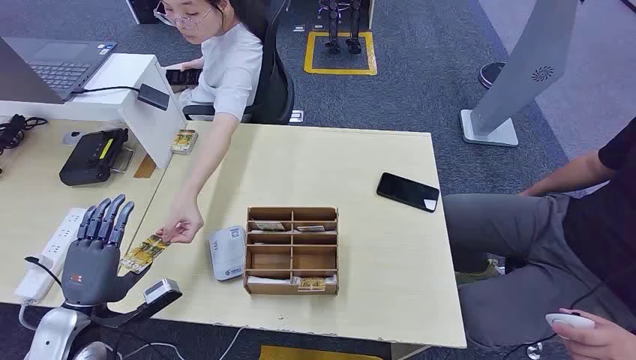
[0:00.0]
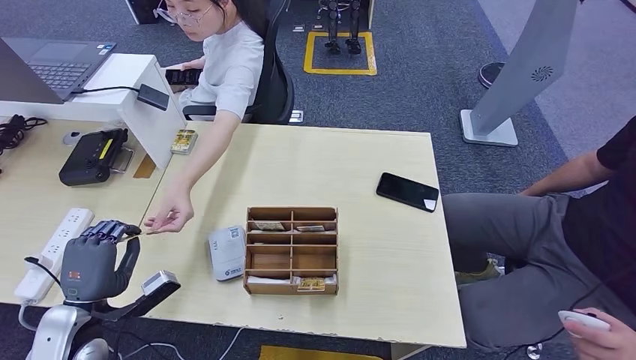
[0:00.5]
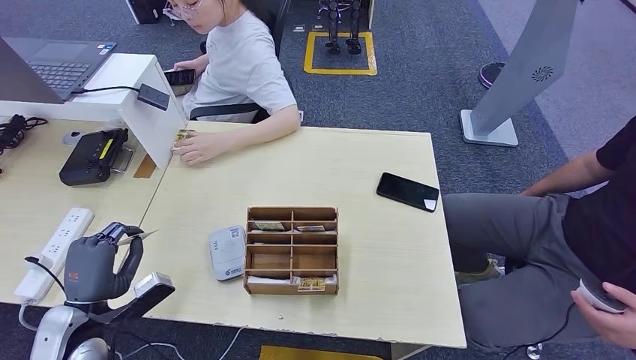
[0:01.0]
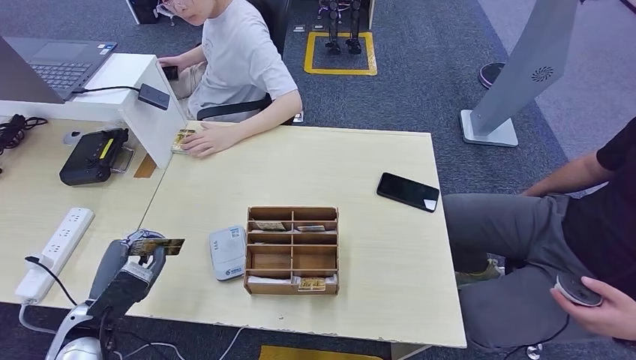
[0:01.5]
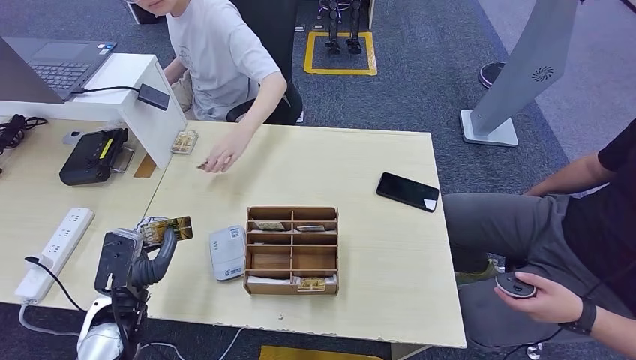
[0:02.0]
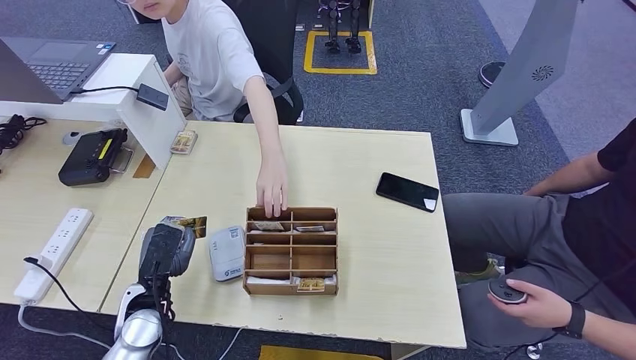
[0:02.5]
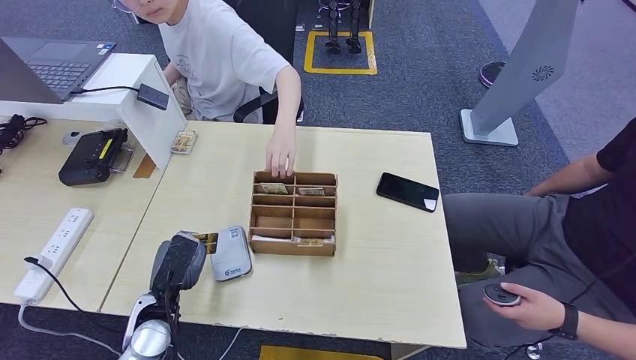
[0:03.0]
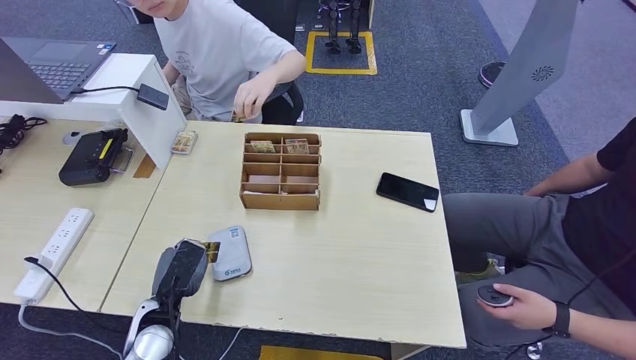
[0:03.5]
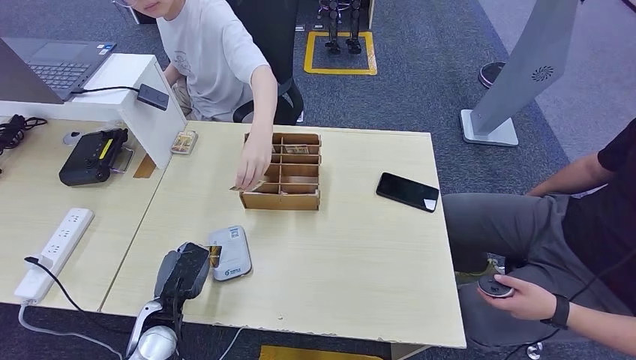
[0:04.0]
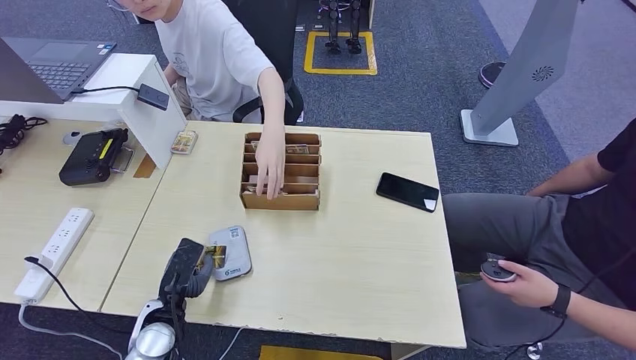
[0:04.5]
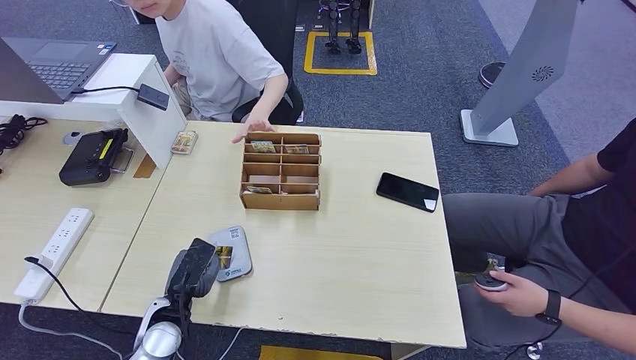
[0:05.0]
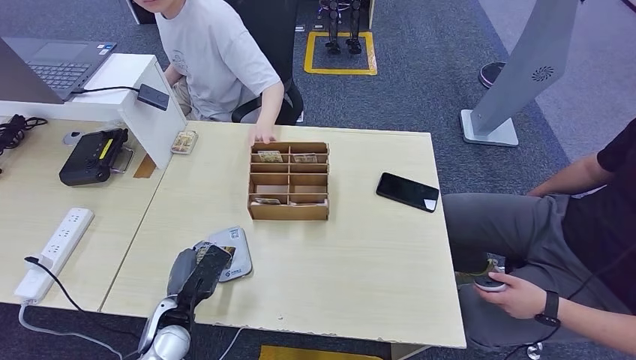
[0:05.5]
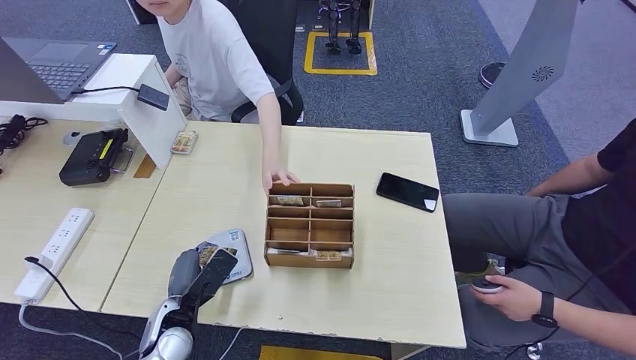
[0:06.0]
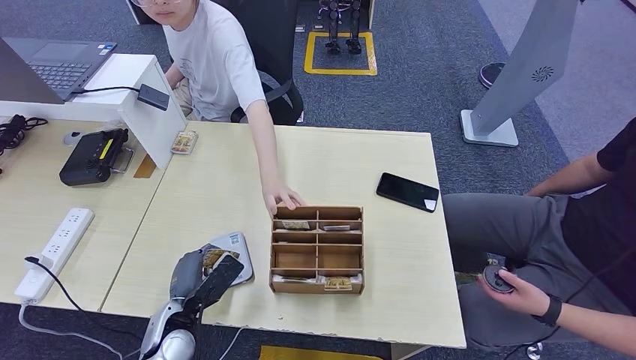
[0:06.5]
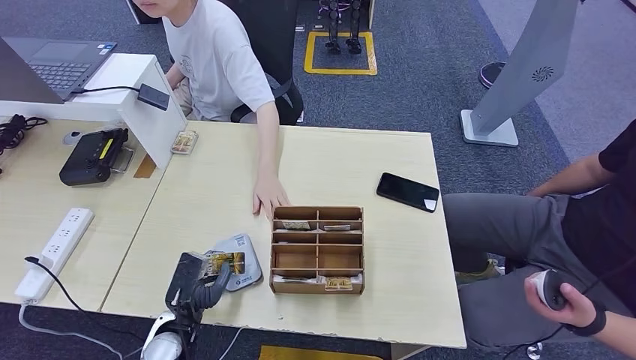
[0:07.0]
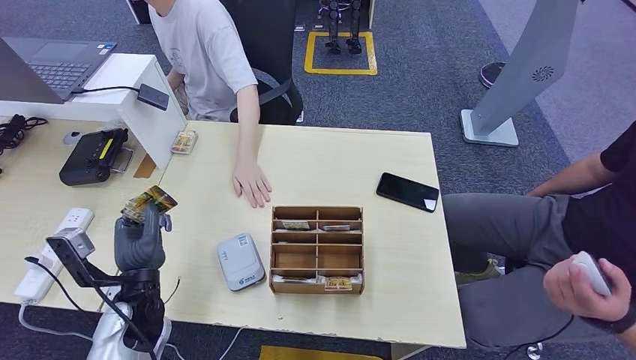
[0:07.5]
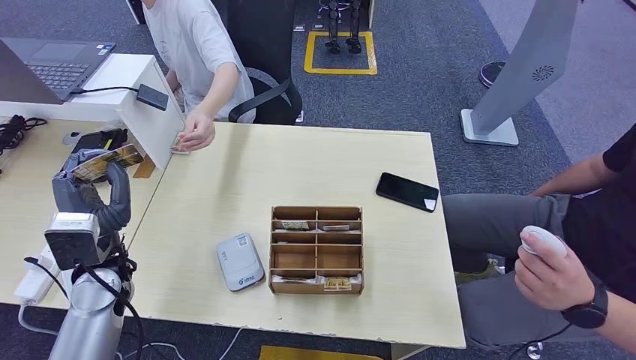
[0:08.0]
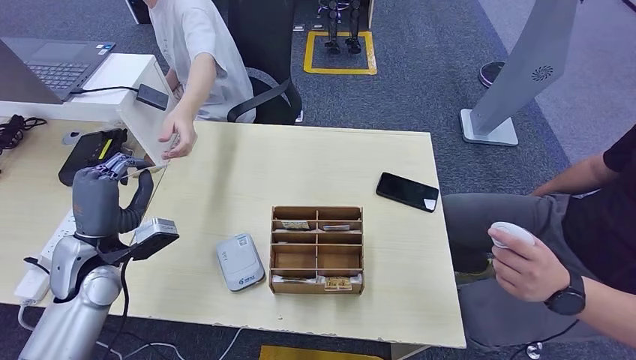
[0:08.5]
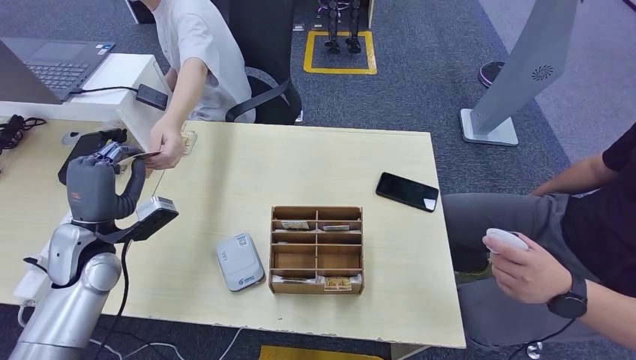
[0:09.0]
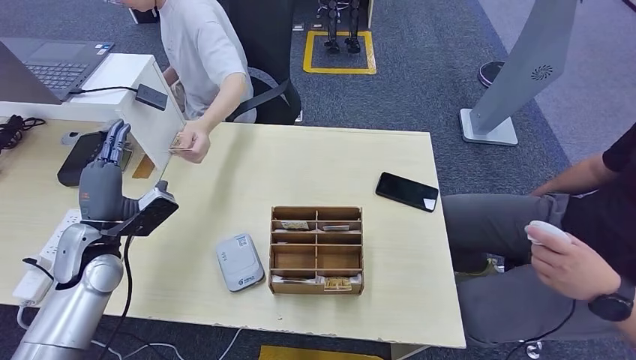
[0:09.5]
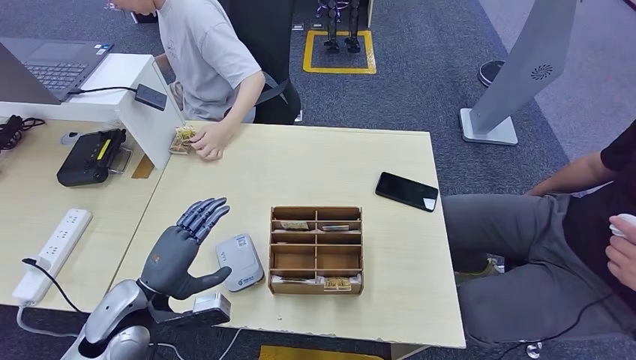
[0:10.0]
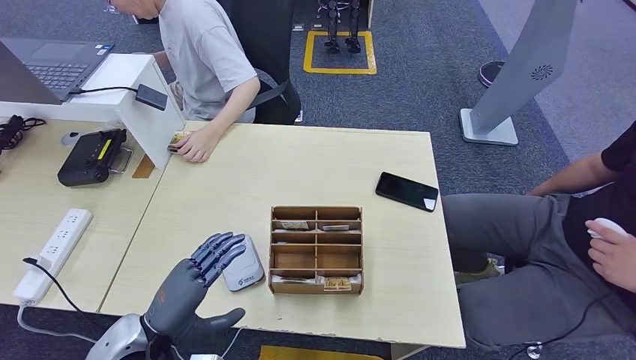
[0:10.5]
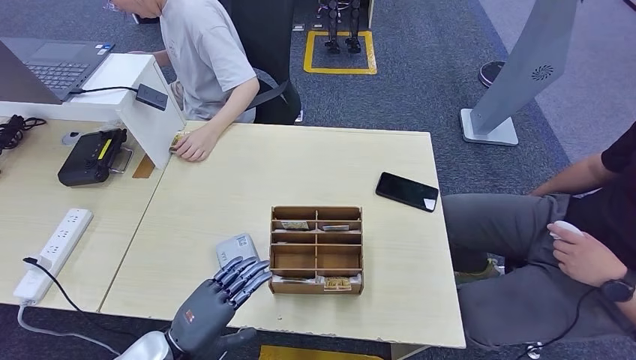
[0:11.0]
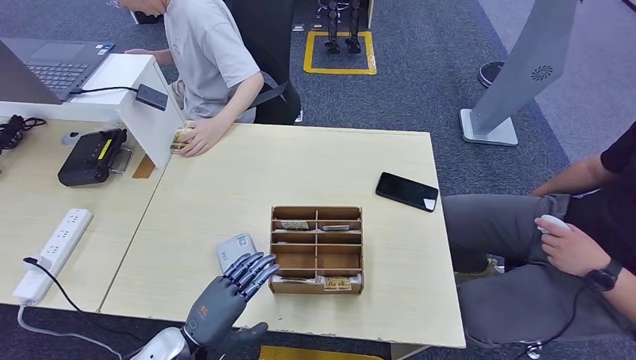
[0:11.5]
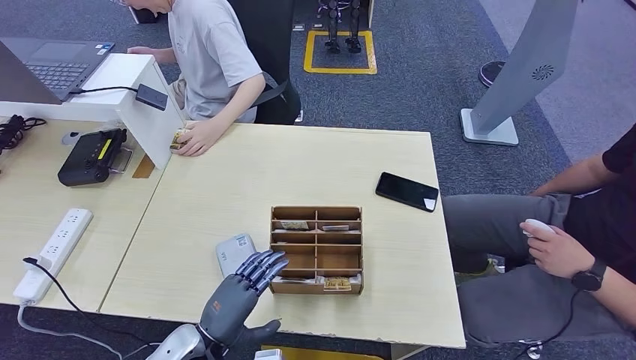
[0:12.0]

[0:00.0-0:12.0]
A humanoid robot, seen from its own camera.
Step, 0:00.0 to 0:01.5: Take the ID card from the person's hand.
Step, 0:02.0 to 0:06.5: Place the ID card on the card reader.
Step, 0:07.0 to 0:09.0: Hand the ID card to the person.
0:02.0 to 0:04.0: The left hand goes roughly 5 cm downward.
0:04.0 to 0:06.0: The hands move only a little.
0:08.0 to 0:10.0: The left hand is displaced downward and backward by approximately 5 cm.
0:10.0 to 0:12.0: The left hand moves to the right, backward and downward, about 10 cm.

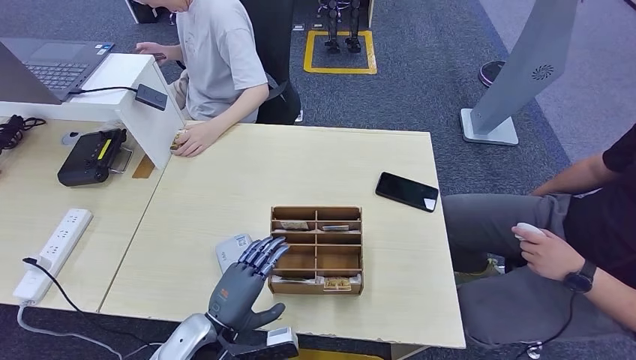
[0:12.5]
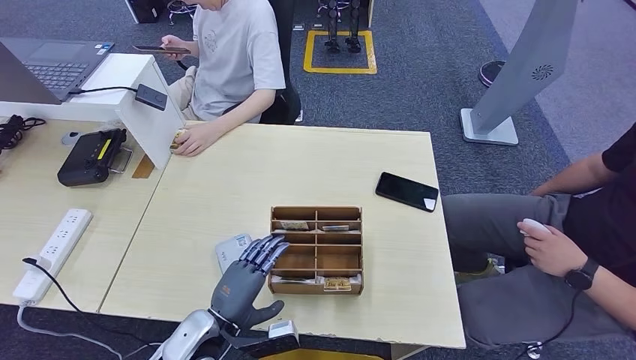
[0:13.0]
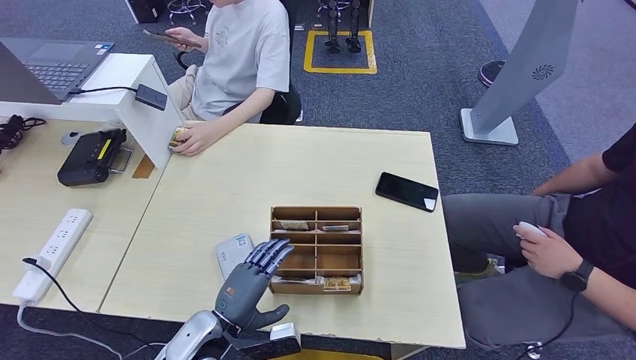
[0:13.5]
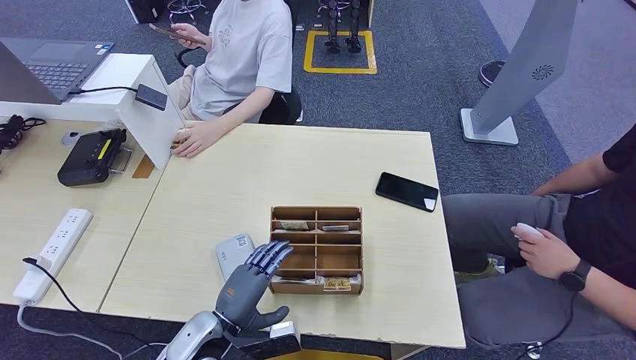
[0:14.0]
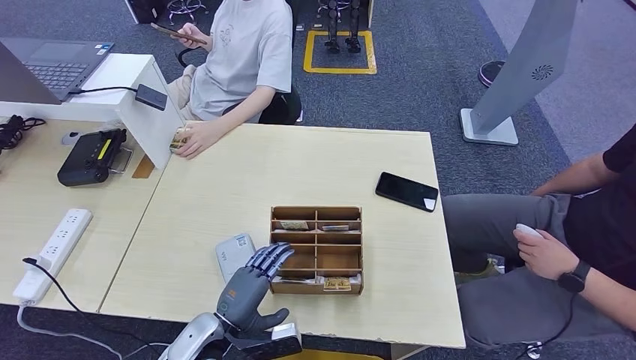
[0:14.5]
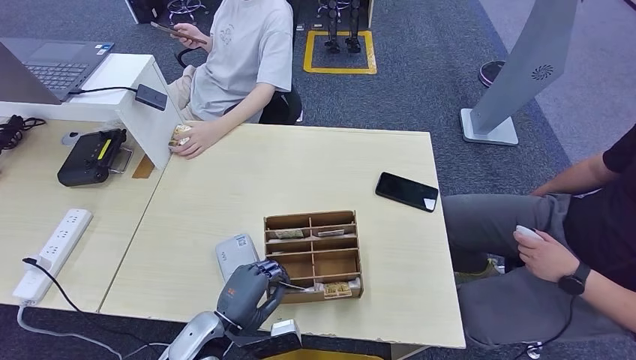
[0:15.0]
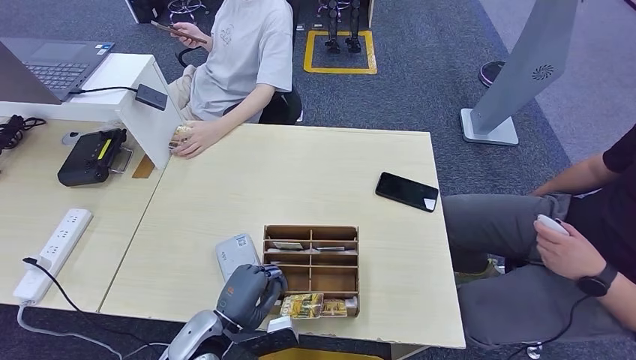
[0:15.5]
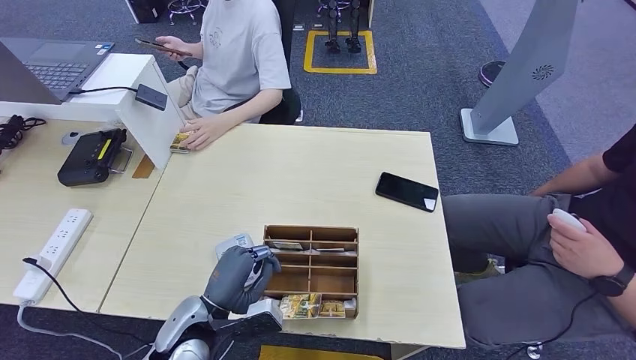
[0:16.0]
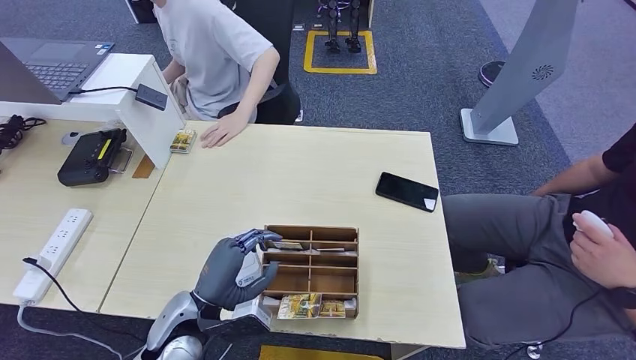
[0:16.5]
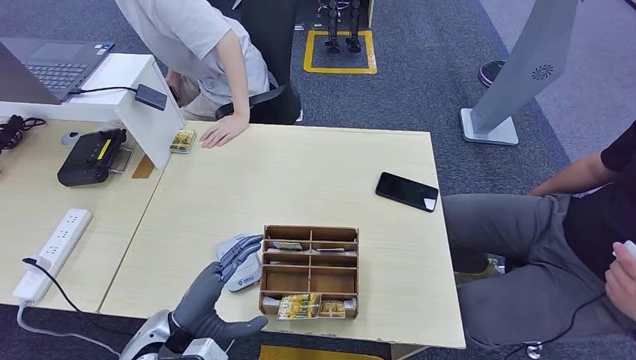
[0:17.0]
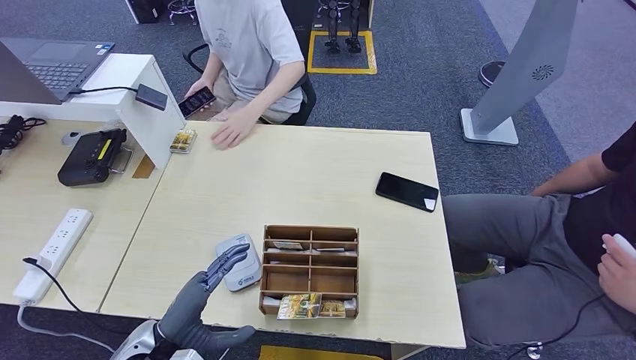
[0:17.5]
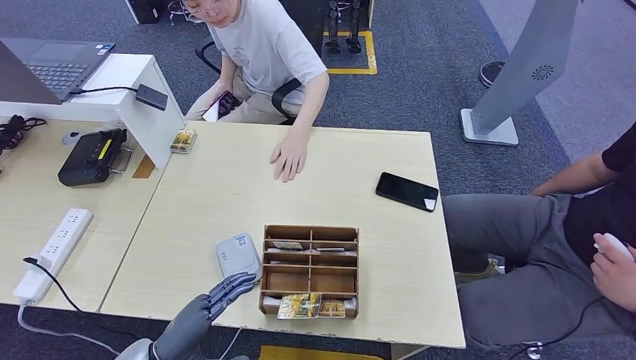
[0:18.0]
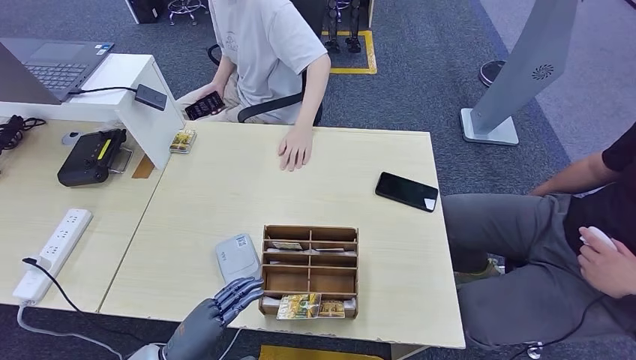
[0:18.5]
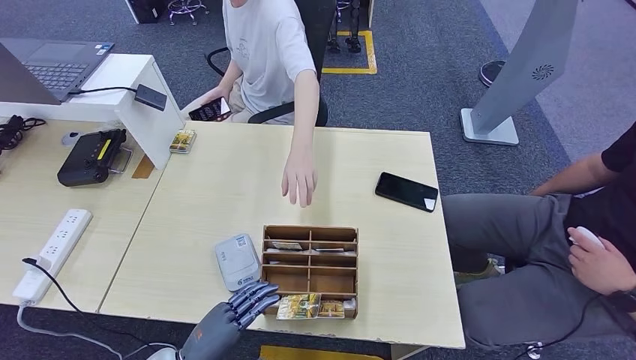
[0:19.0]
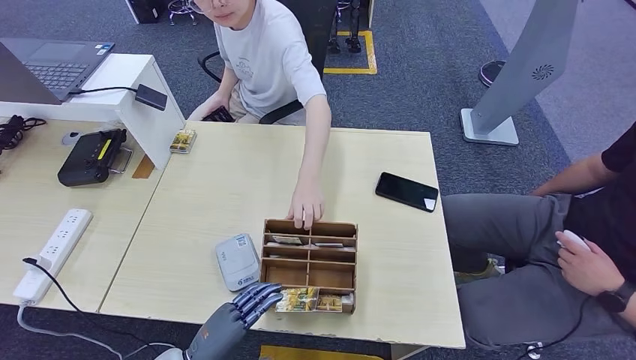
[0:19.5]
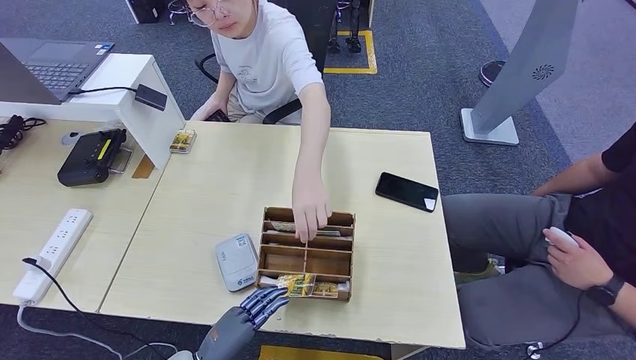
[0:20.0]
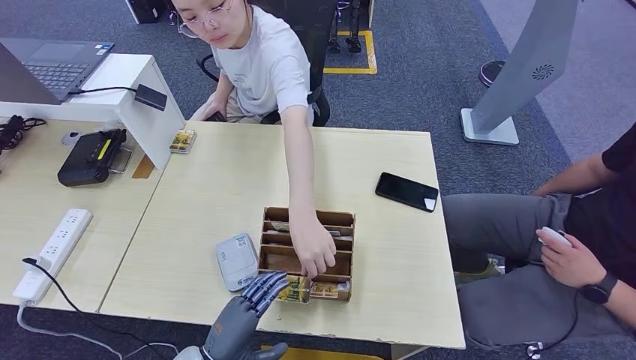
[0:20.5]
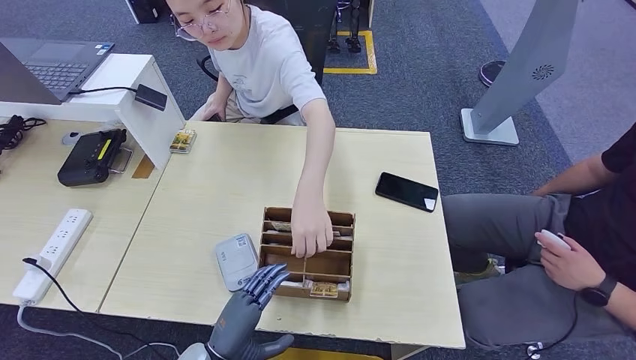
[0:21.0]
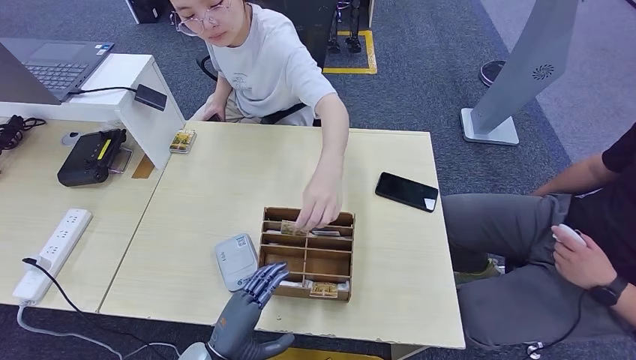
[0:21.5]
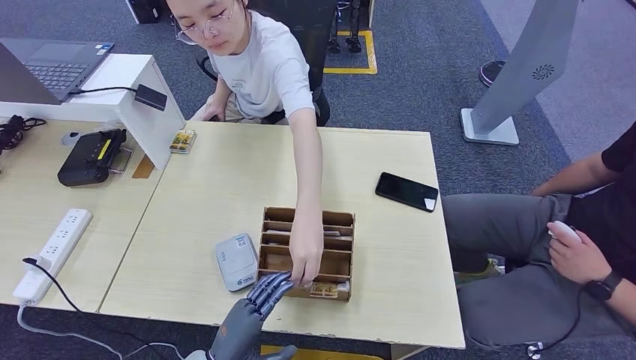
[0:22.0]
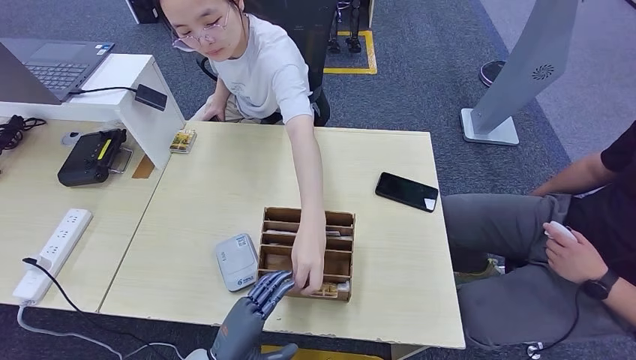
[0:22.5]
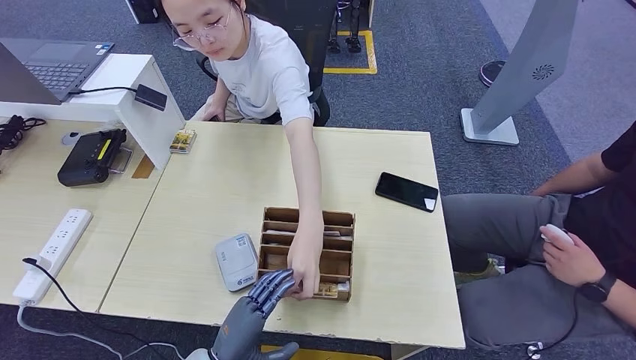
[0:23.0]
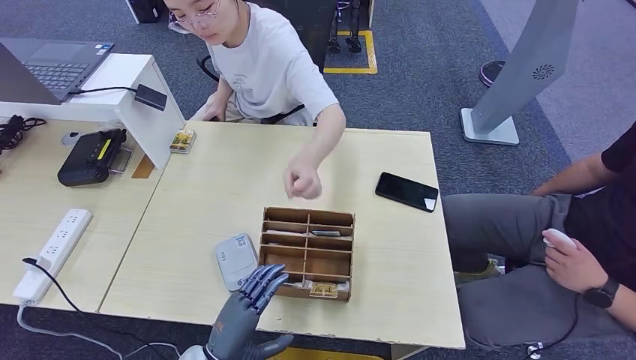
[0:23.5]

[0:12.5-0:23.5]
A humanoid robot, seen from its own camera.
0:12.5 to 0:16.0: The hands make only small movements.
0:16.0 to 0:18.0: The left hand moves to the left and backward, roughly 10 cm.
0:18.0 to 0:20.0: The left hand goes approximately 5 cm to the right.
0:20.0 to 0:23.5: The hands move only a little.
